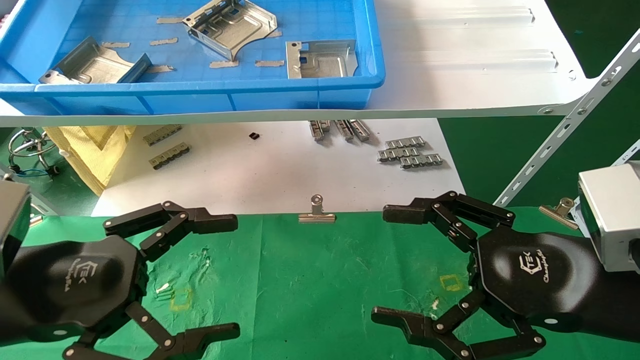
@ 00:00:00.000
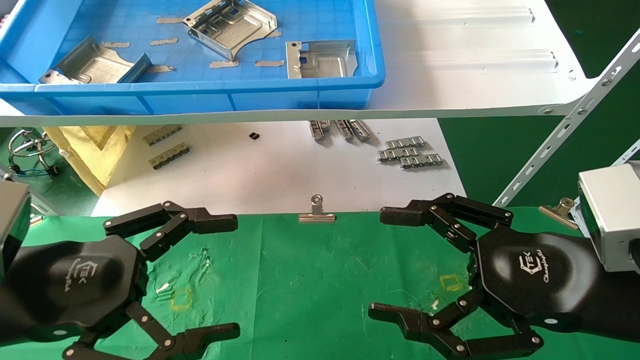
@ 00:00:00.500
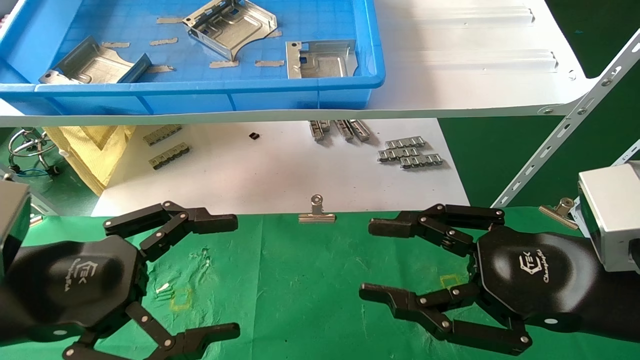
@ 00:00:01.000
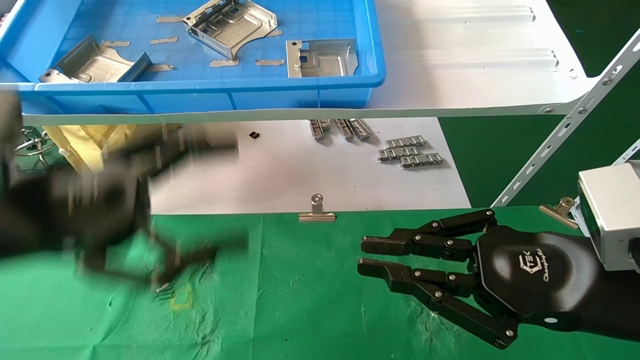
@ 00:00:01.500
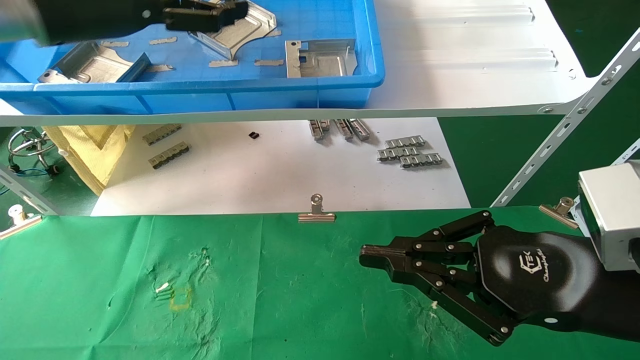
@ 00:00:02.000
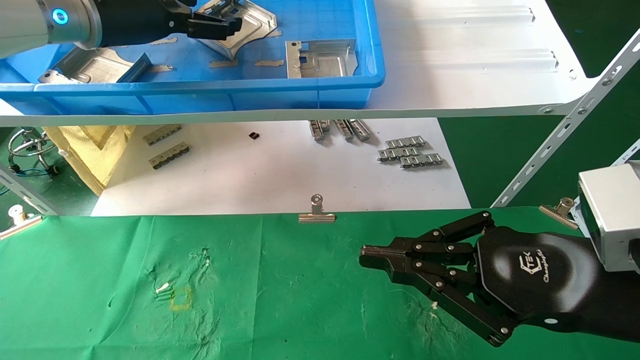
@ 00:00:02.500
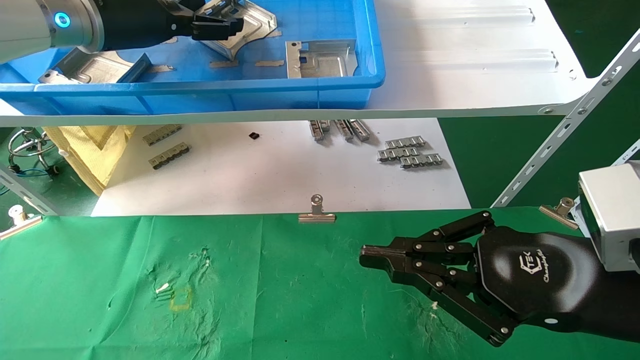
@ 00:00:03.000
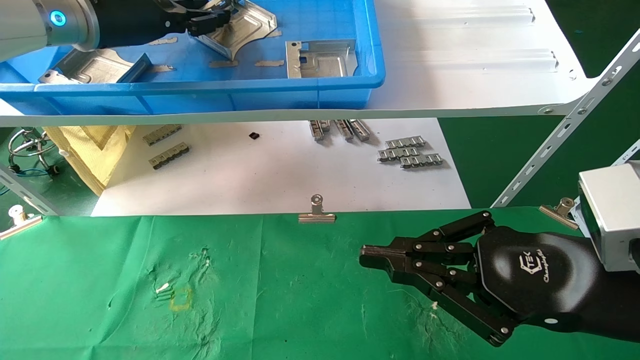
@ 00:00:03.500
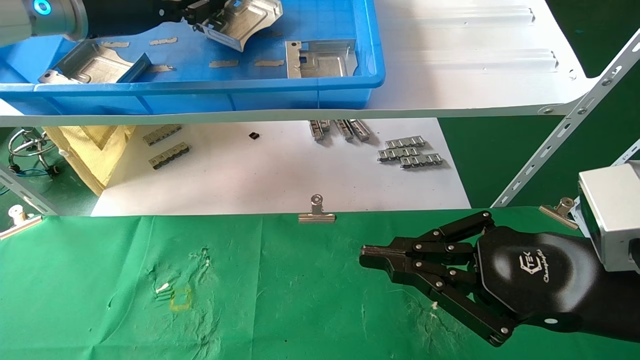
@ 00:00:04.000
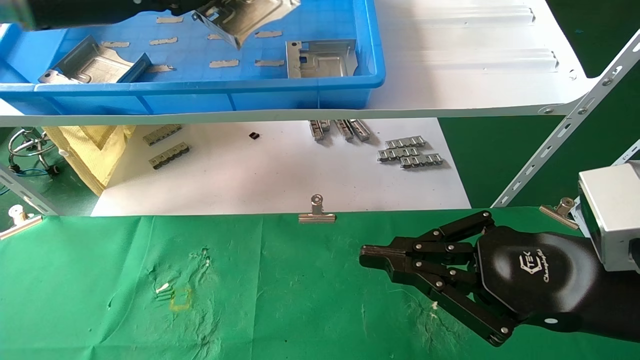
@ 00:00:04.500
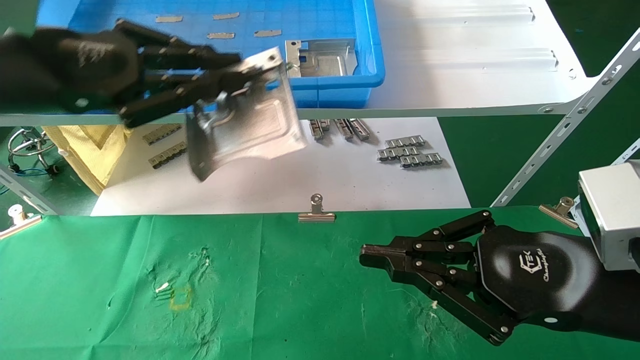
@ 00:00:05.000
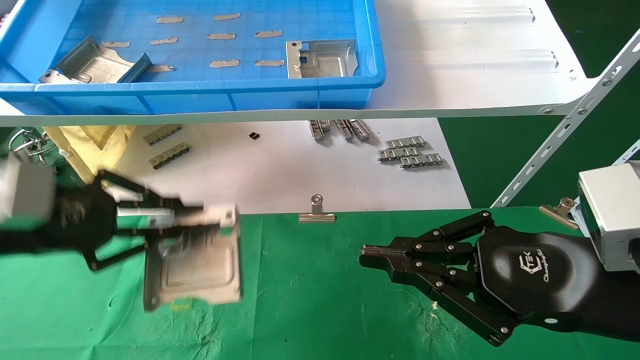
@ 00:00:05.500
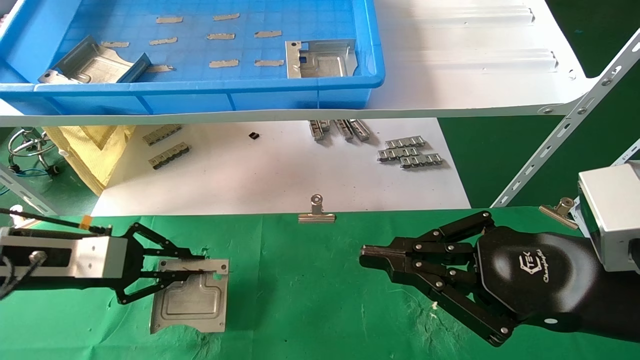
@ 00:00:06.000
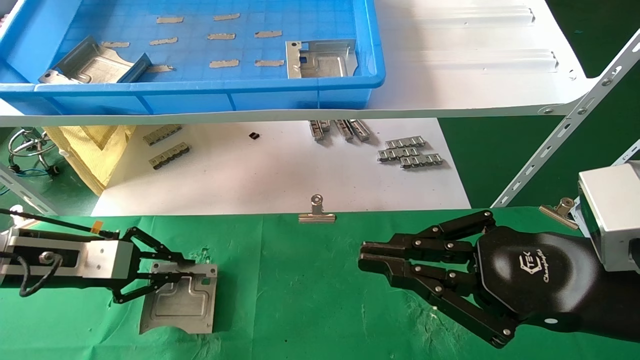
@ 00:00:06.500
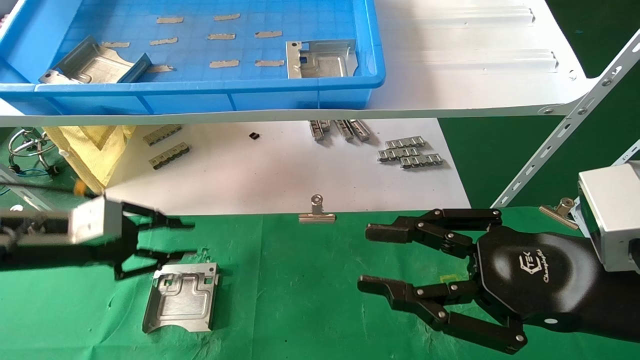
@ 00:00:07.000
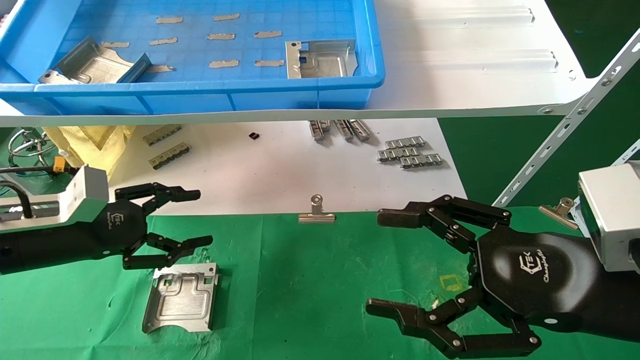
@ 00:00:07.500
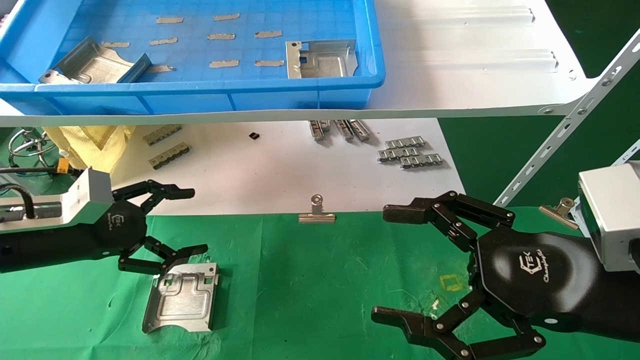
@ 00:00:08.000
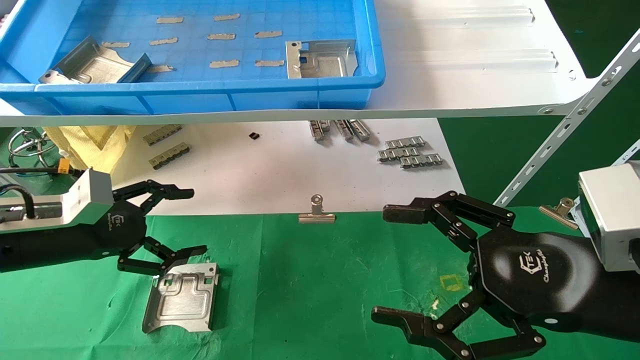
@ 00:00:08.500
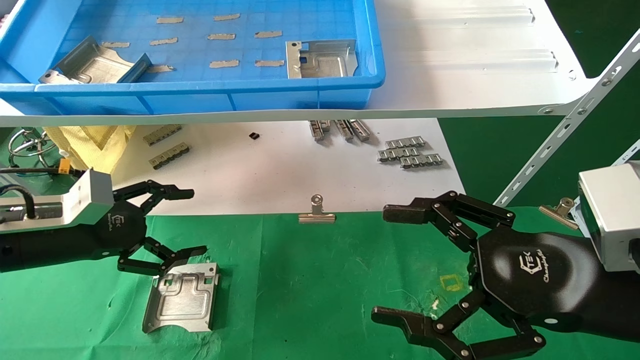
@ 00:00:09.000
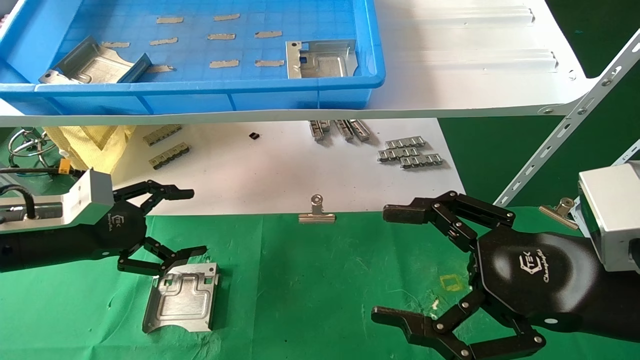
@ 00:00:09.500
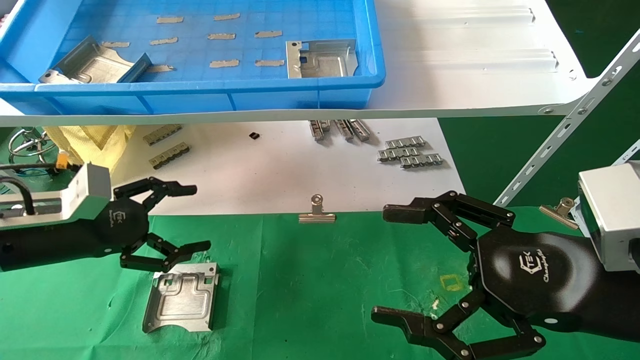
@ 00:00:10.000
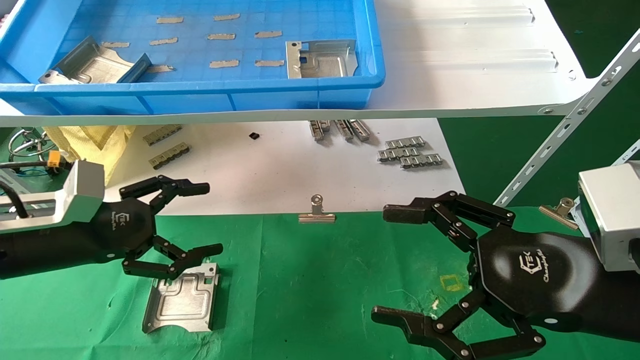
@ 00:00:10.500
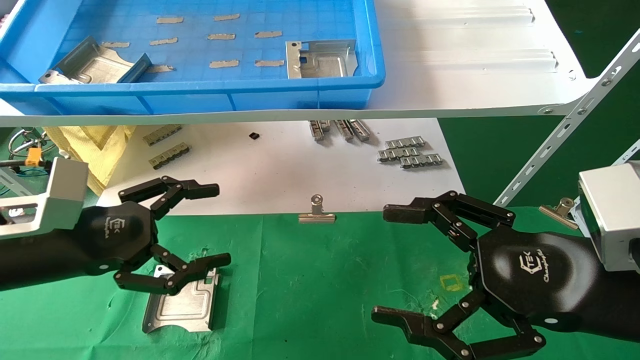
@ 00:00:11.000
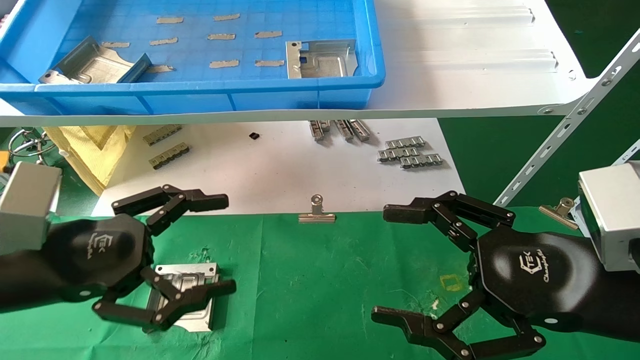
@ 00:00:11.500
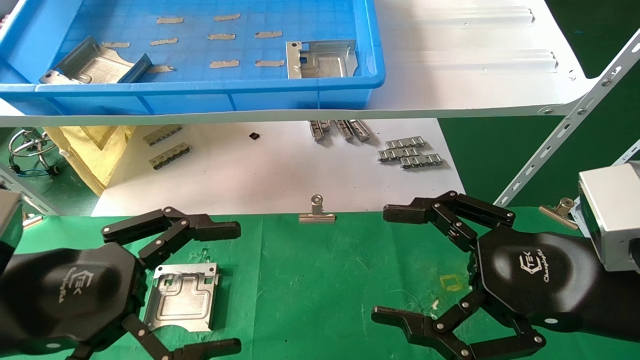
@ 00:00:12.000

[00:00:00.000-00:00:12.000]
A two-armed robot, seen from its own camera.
Task of the whole recording: use the mechanical arm to pick up the parts and place them on the table.
Step, 00:00:02.000 to 00:00:03.500: Pick up the hard drive bracket from the feeding area.
Step, 00:00:04.000 to 00:00:07.000: Place the hard drive bracket into the box.
00:00:00.000 to 00:00:02.000: The left gripper travels upward and forward by roughly 30 cm; the right gripper closes its fingers.
00:00:02.000 to 00:00:04.000: The left gripper closes up.
00:00:04.000 to 00:00:06.000: The left gripper shifts approximately 25 cm downward.
00:00:06.000 to 00:00:08.000: The left gripper opens. The right gripper opens up.
00:00:08.000 to 00:00:10.000: Both grippers stay about where they are.
00:00:10.000 to 00:00:12.000: The left gripper travels backward and to the right by some 15 cm.

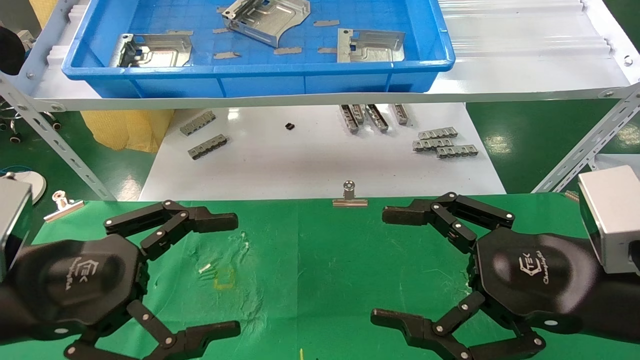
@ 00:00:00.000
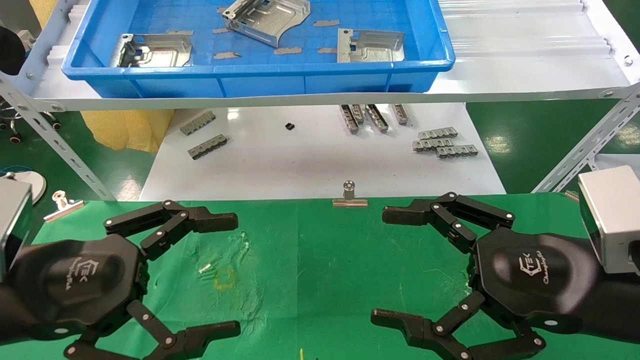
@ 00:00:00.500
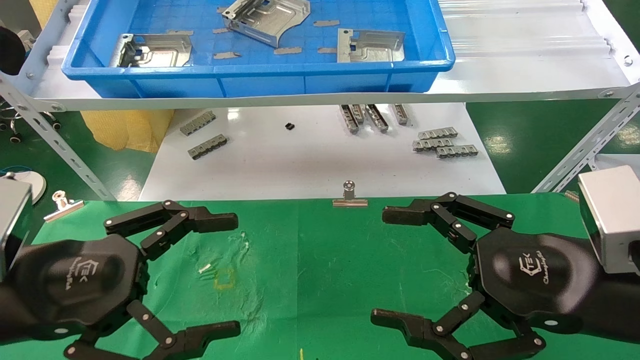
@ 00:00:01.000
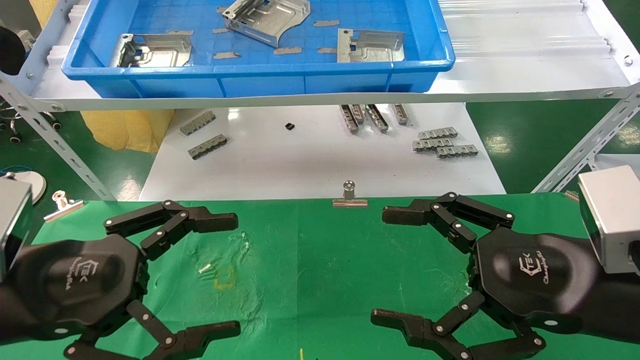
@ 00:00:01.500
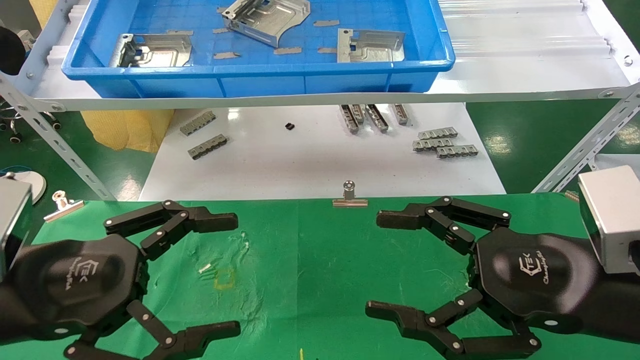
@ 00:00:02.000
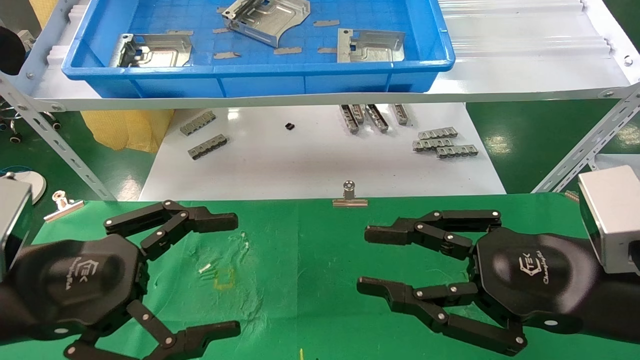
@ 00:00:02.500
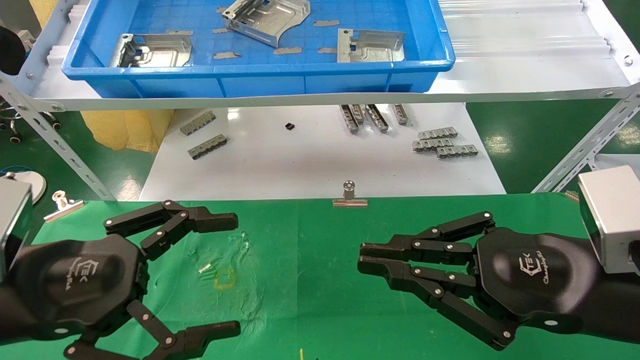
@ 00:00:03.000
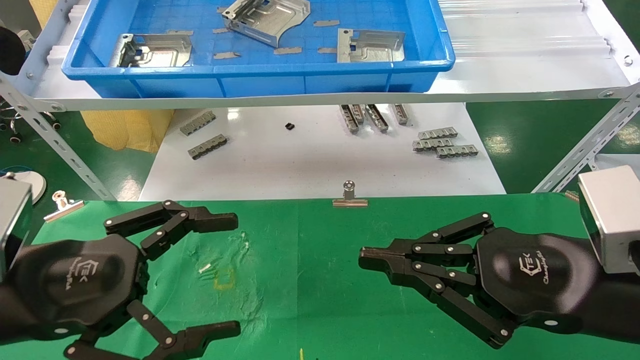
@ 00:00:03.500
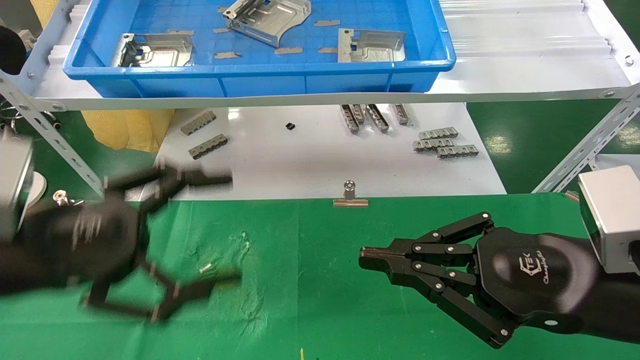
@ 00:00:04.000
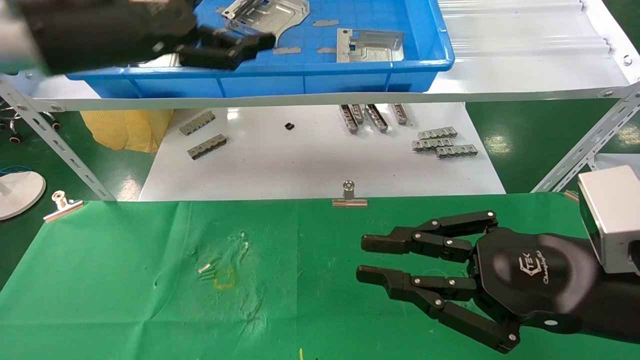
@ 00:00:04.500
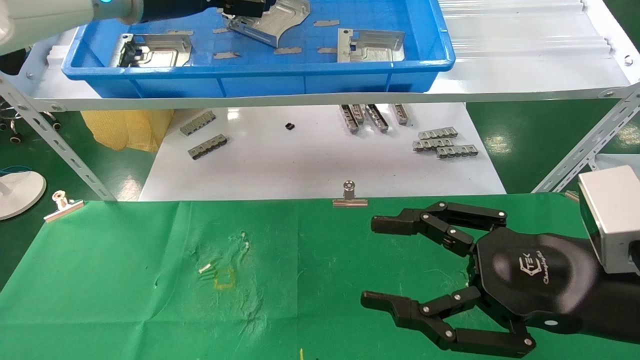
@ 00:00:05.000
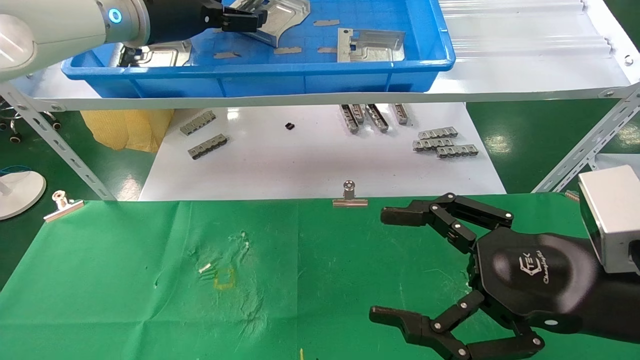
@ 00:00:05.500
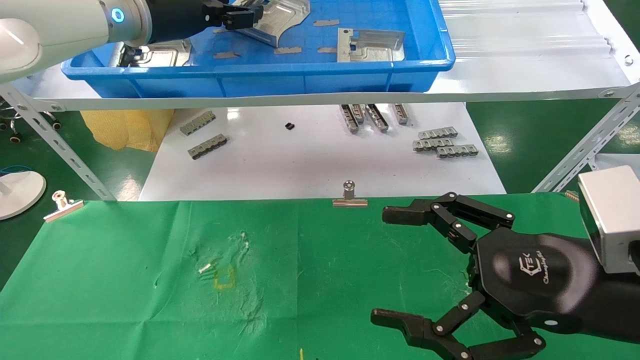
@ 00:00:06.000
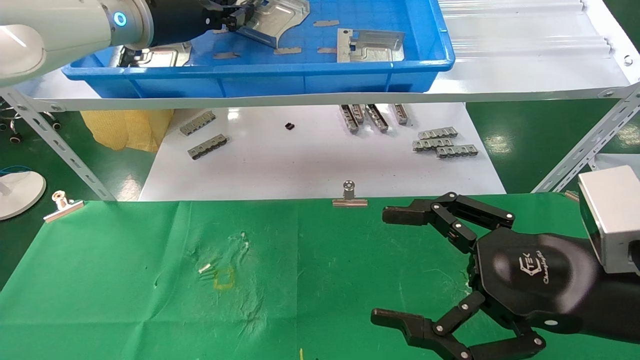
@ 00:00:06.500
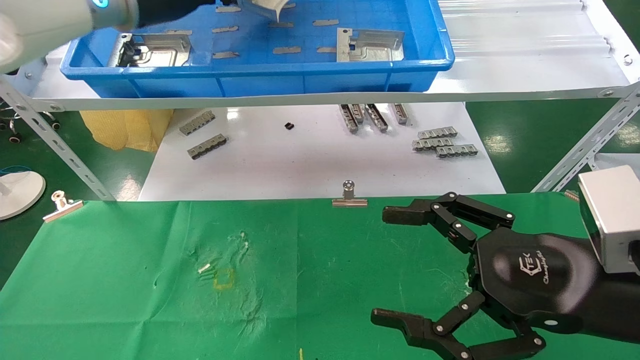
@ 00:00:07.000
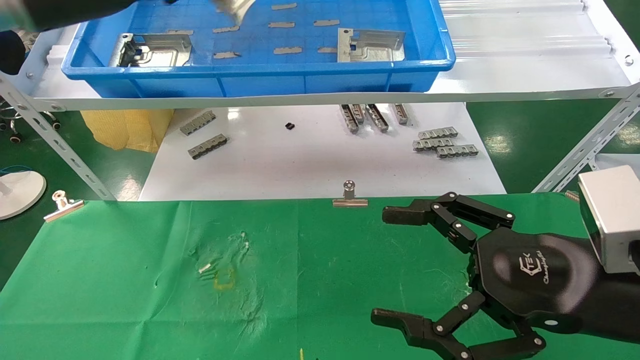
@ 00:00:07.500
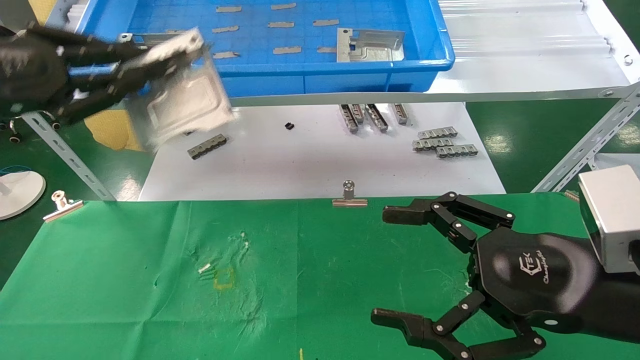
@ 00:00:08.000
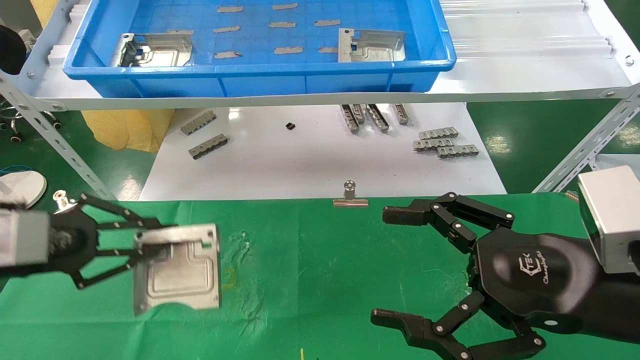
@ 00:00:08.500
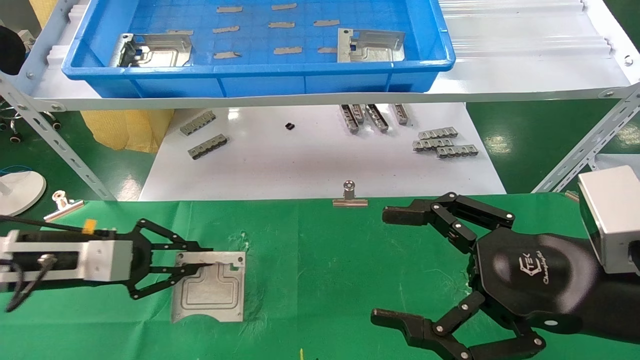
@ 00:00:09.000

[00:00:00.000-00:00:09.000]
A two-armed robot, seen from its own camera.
Task of the whole recording: use the mechanical arm to pick up the parts and place them on the table.
Step, 00:00:04.000 to 00:00:06.500: Pick up the hard drive bracket from the feeding area.
00:00:00.000 to 00:00:02.000: Both grippers stay about where they are.
00:00:02.000 to 00:00:04.500: The left gripper is displaced upward and forward by roughly 25 cm. Meanwhile the right gripper closes.
00:00:04.500 to 00:00:07.000: The right gripper opens up; the left gripper travels forward and upward by some 10 cm, and closes its fingers.
00:00:07.000 to 00:00:09.000: The left gripper shifts roughly 30 cm downward and to the left.
